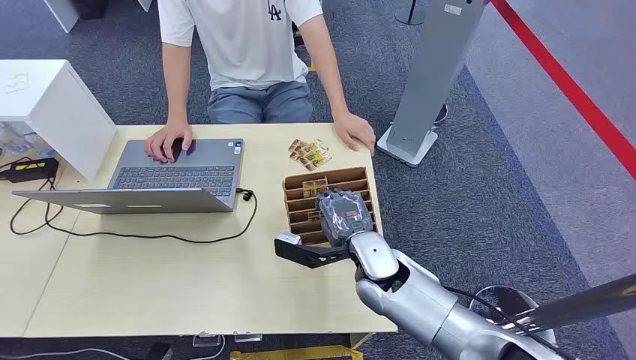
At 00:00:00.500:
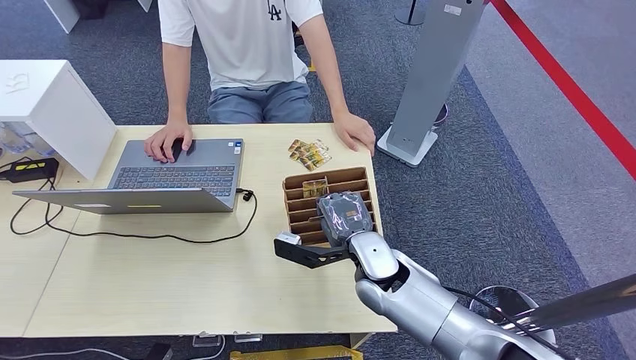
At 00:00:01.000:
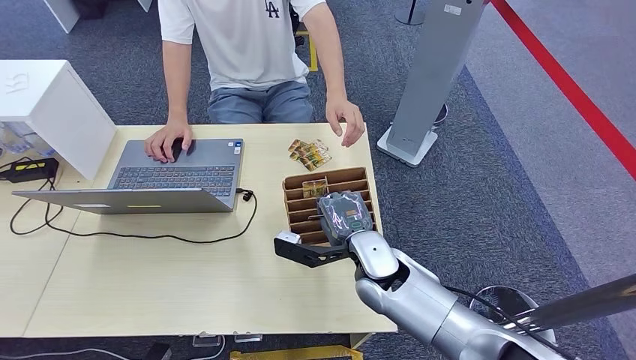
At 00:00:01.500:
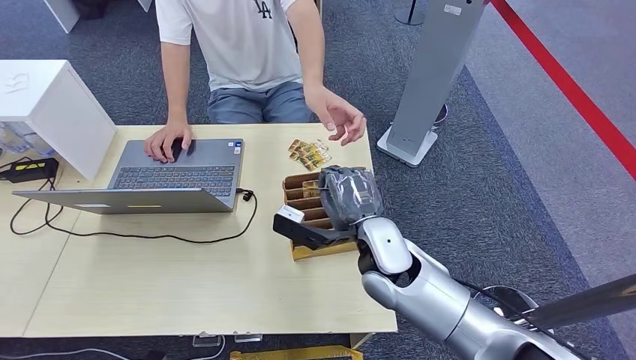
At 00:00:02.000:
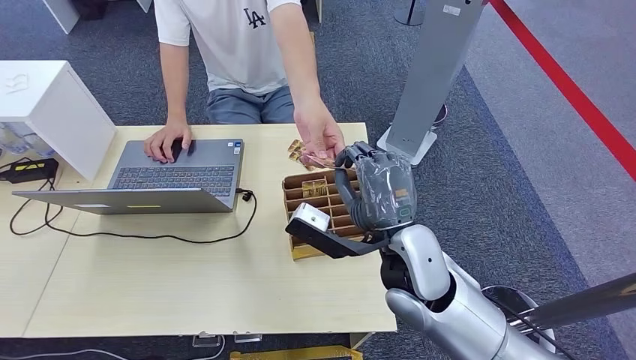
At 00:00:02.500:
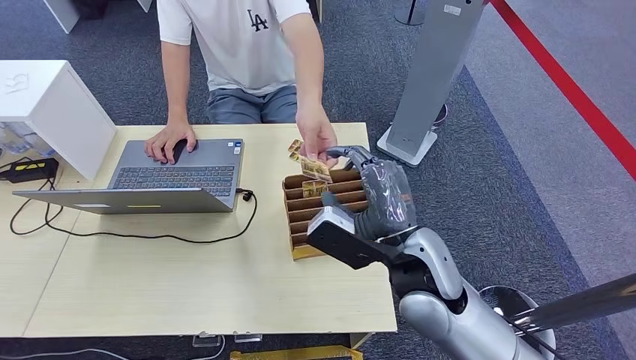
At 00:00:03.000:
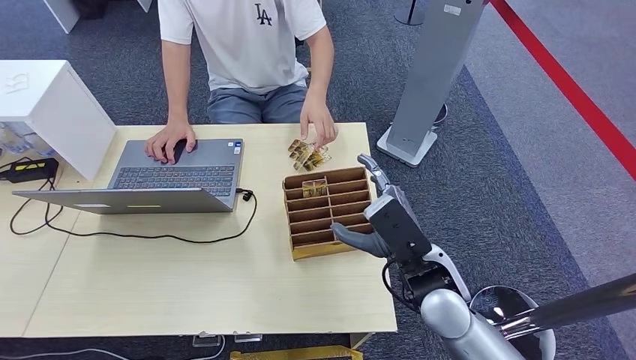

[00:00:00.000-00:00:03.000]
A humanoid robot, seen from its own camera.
Step, 00:00:00.000 to 00:00:01.500: Pick up the key card from the card box.
Step, 00:00:02.000 to 00:00:03.000: Hand the key card to the target.
00:00:01.500 to 00:00:03.000: The right hand moves to the right and backward, some 10 cm.
